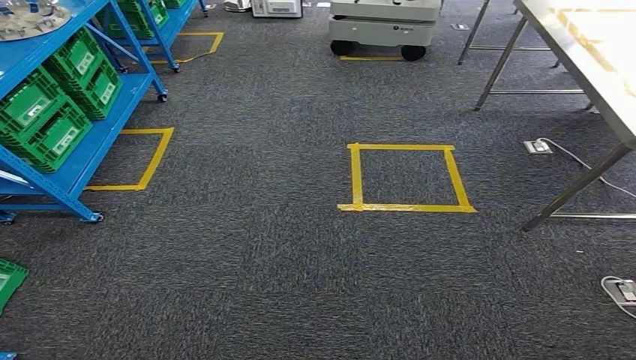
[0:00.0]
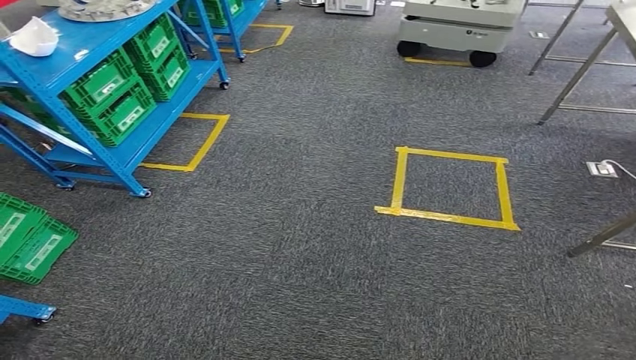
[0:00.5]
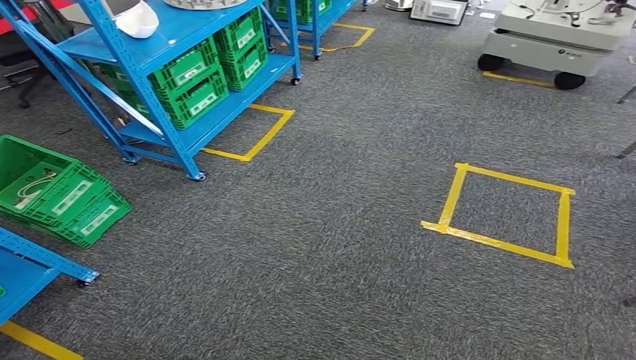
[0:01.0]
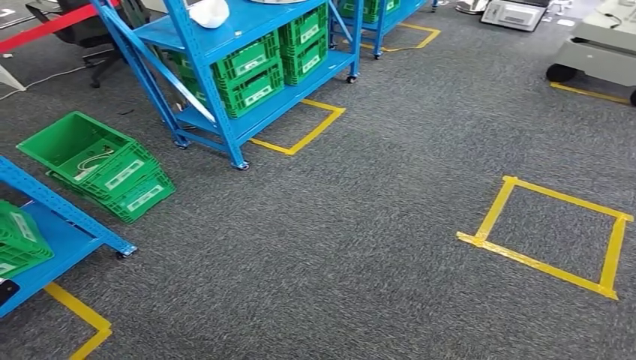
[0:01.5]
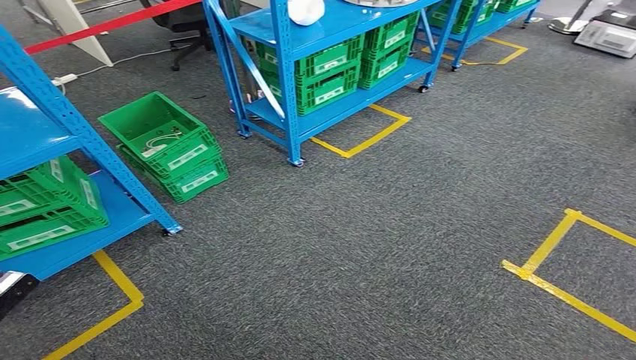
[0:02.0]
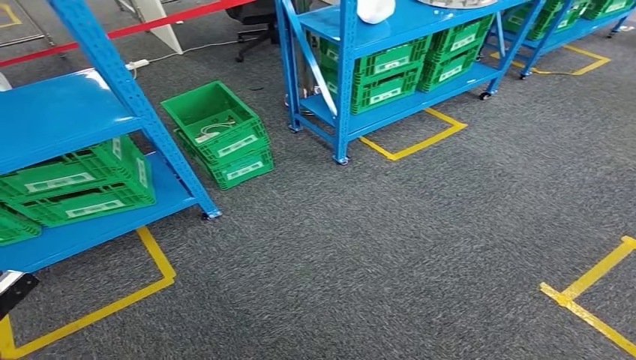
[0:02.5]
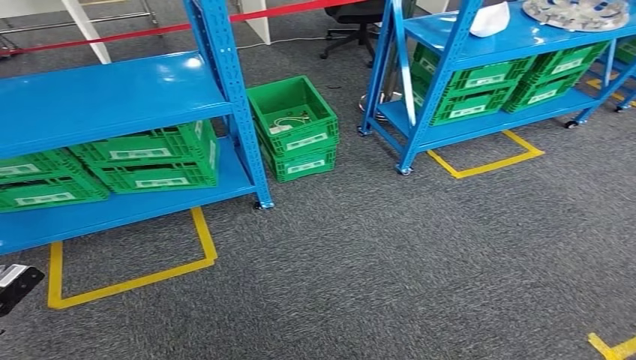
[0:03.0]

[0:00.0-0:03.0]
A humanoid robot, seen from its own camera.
Step, 0:00.0 to 0:03.0: Return to the initial position at the workbench.
